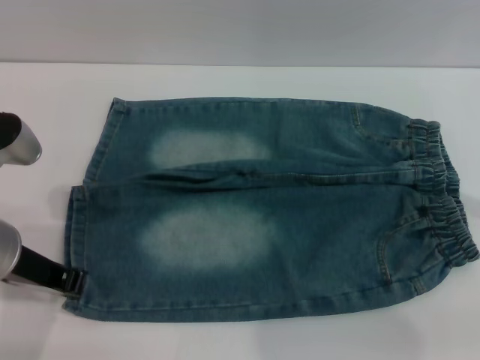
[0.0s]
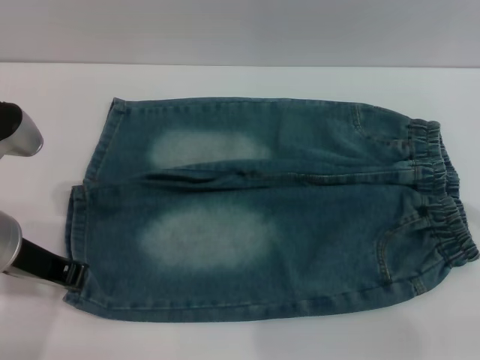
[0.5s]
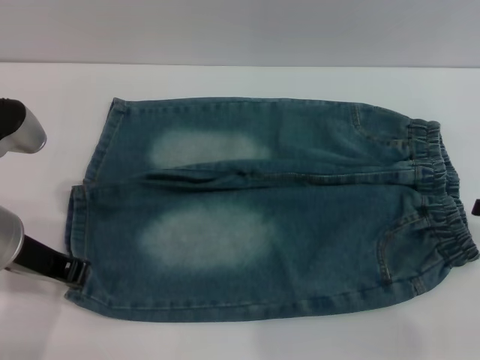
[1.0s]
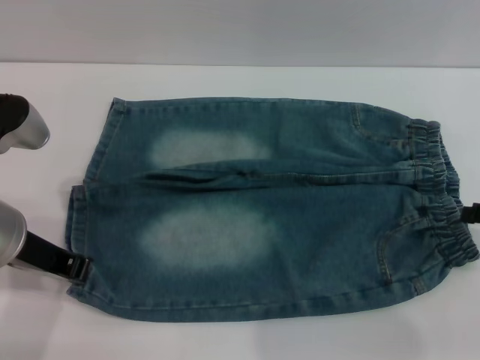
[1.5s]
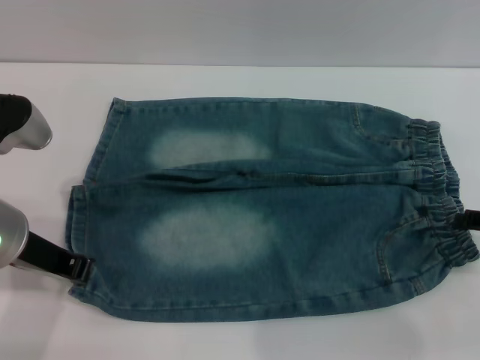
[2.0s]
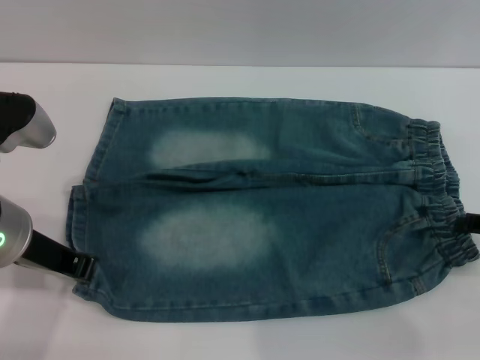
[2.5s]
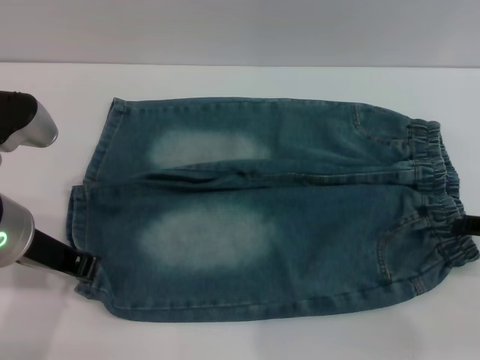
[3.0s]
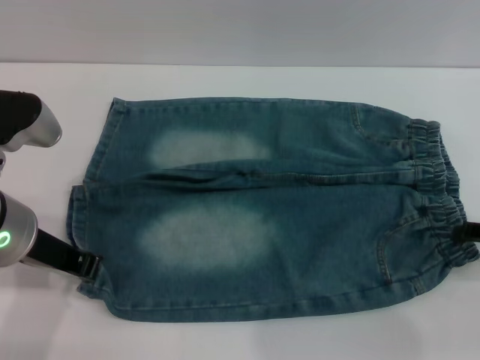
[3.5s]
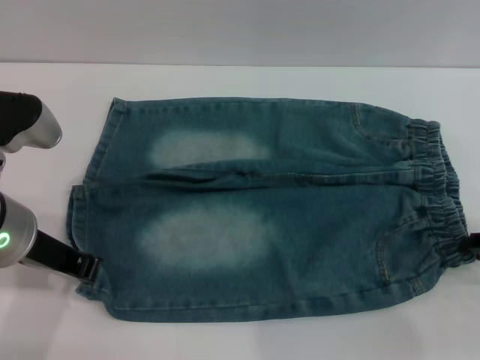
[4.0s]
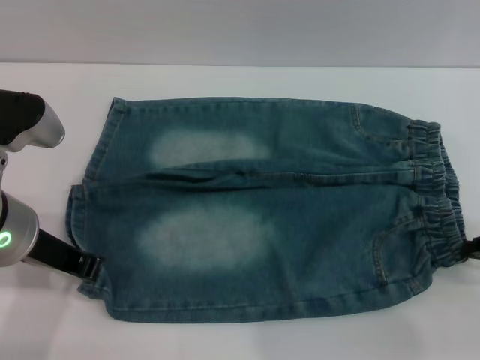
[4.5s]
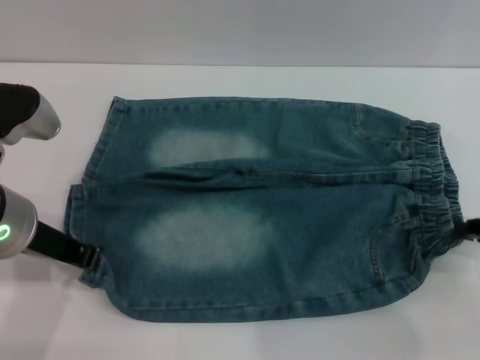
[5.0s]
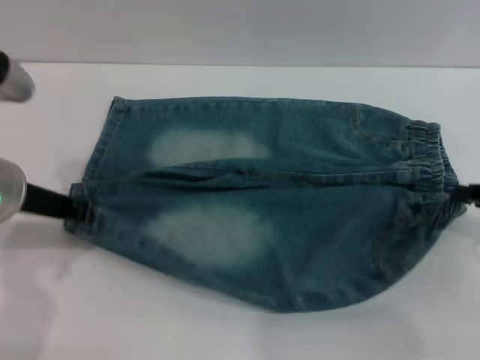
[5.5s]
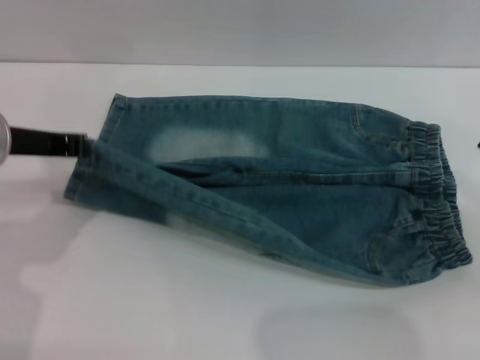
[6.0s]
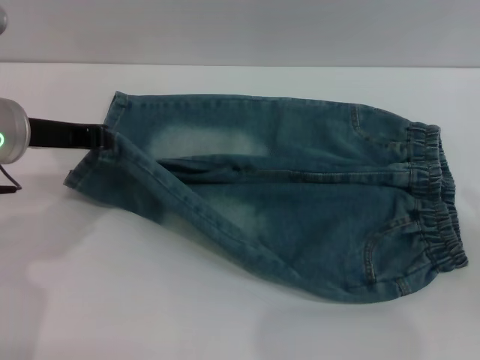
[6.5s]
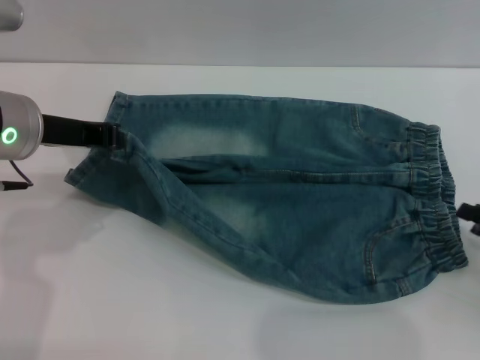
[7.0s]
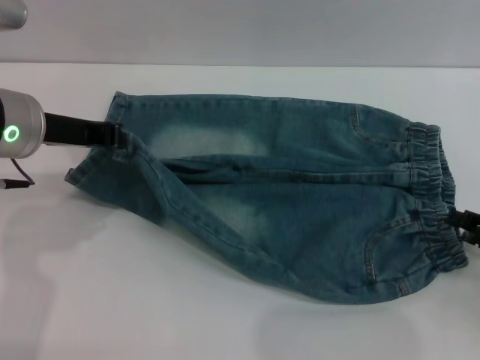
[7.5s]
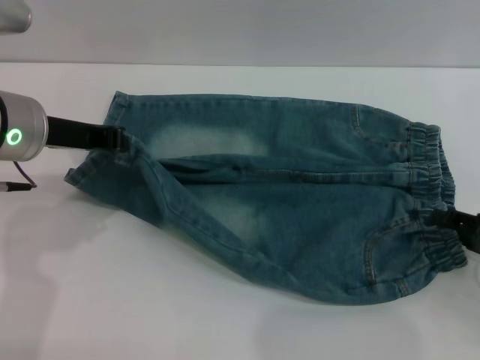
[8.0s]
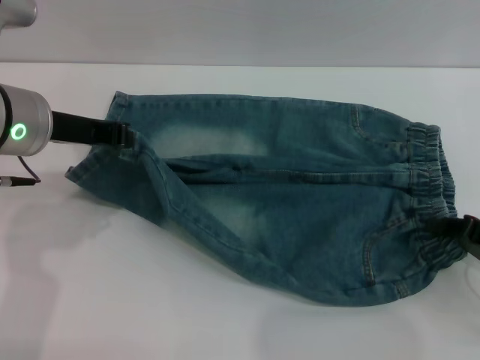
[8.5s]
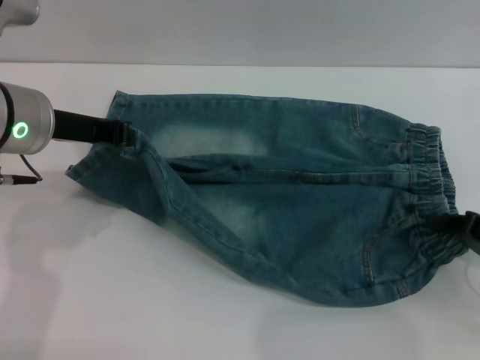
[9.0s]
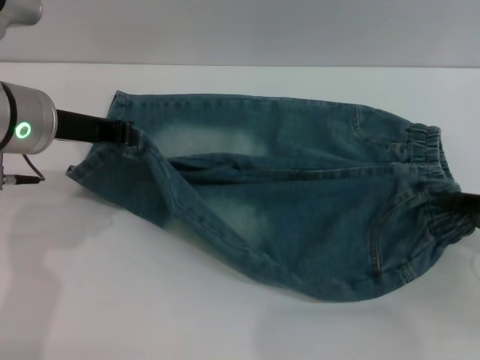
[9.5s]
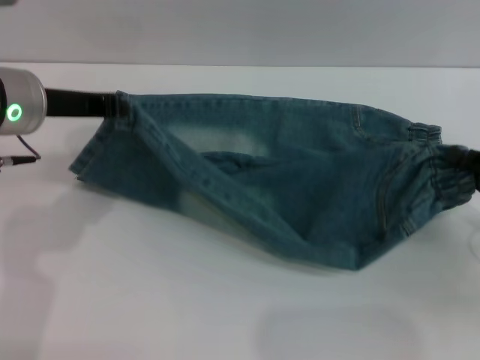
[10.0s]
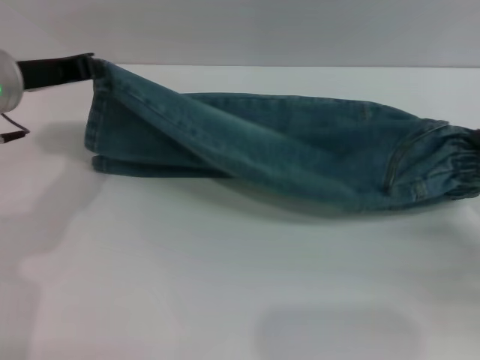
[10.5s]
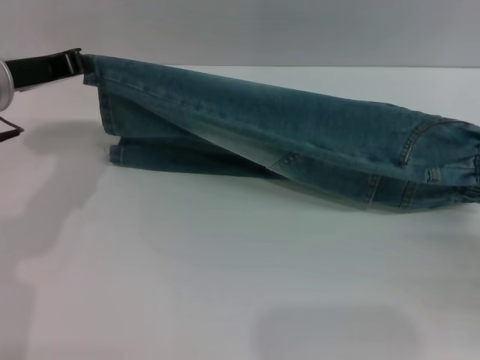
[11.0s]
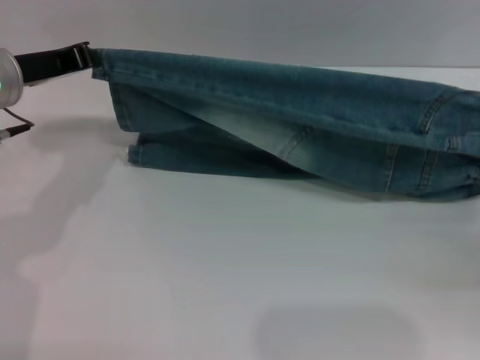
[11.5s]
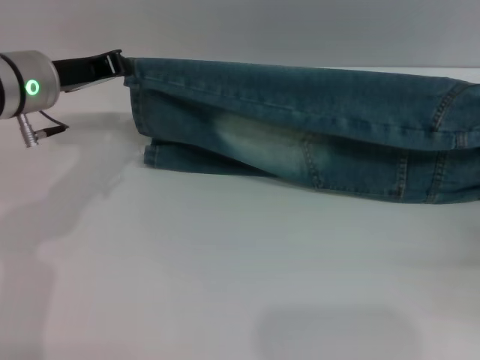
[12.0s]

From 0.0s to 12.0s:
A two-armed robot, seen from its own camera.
From 4.0s to 6.0s: The left gripper moves roughly 5 cm. The right gripper closes up.
From 6.0s to 8.0s: The right gripper shifts roughly 5 cm downward, and opens its fingers.
From 8.0s to 10.0s: The right gripper closes.
From 10.0s to 12.0s: The left gripper moves some 5 cm, while the right gripper moves about 5 cm.

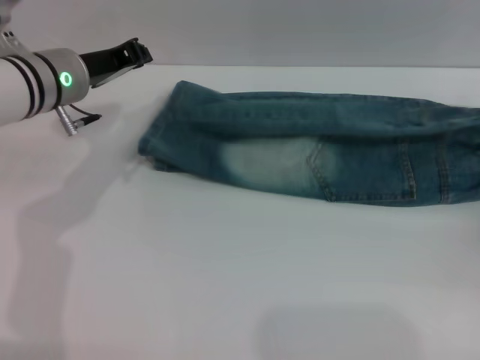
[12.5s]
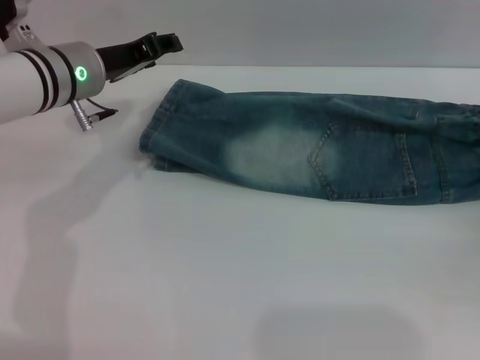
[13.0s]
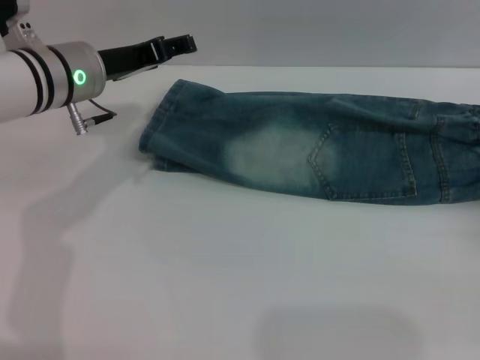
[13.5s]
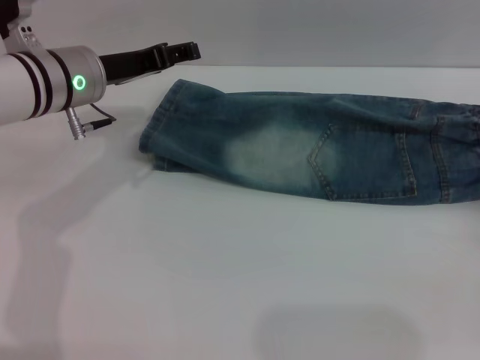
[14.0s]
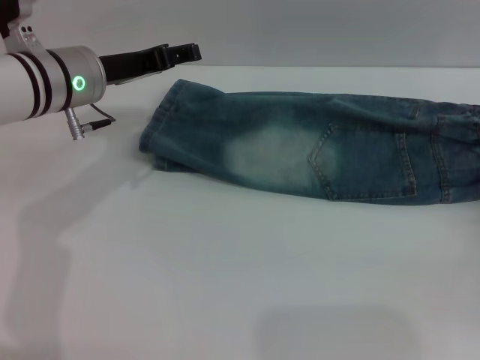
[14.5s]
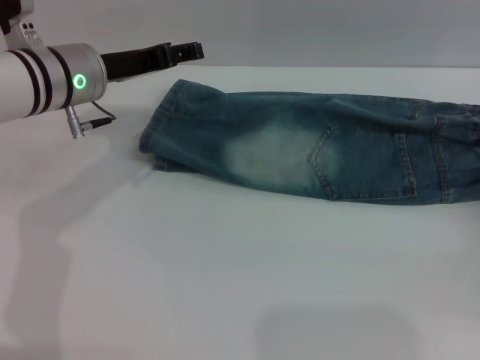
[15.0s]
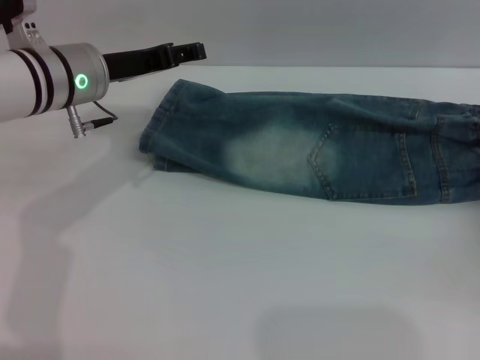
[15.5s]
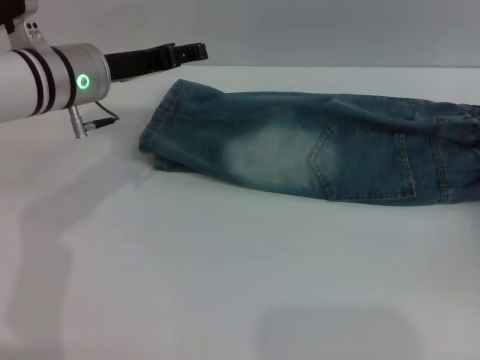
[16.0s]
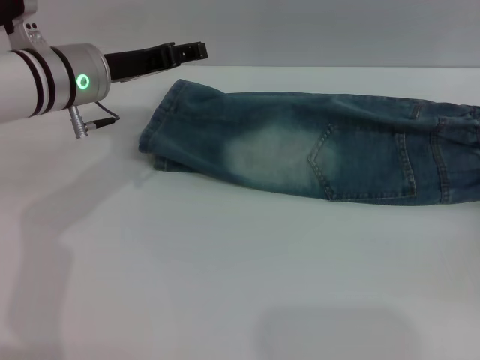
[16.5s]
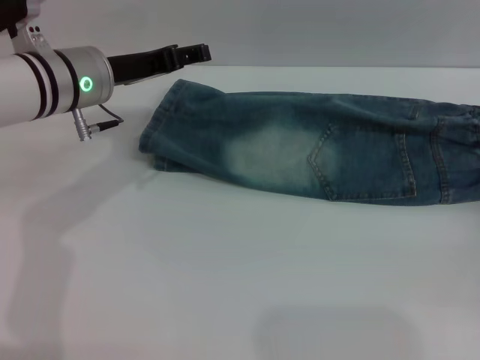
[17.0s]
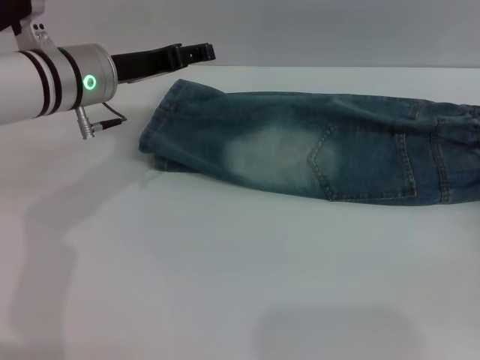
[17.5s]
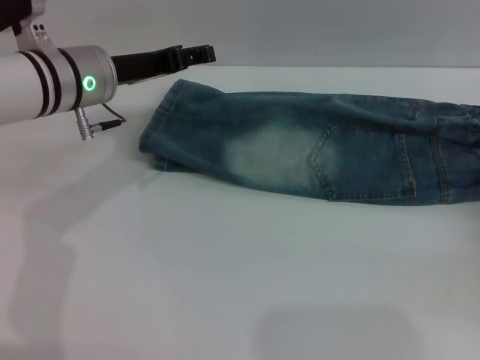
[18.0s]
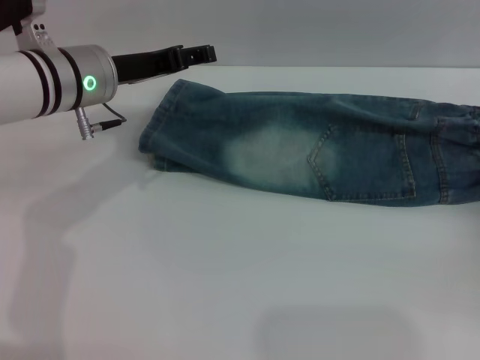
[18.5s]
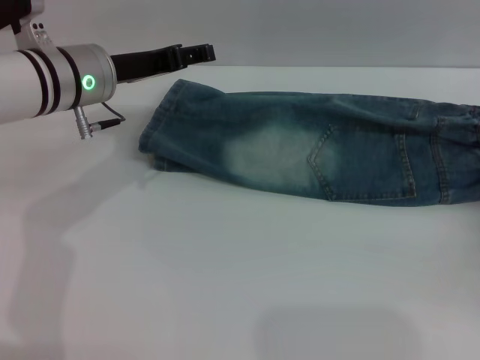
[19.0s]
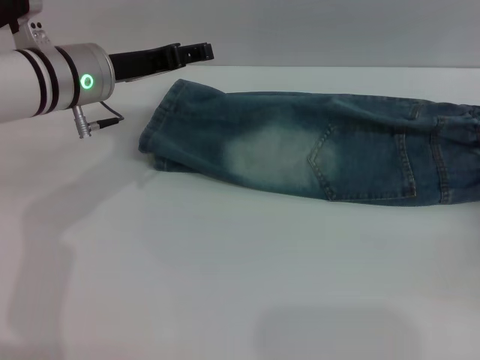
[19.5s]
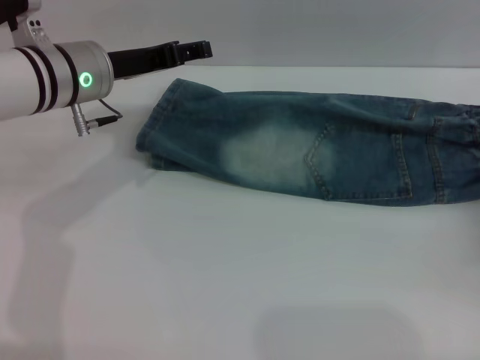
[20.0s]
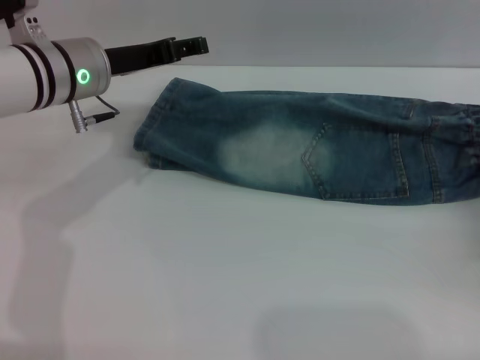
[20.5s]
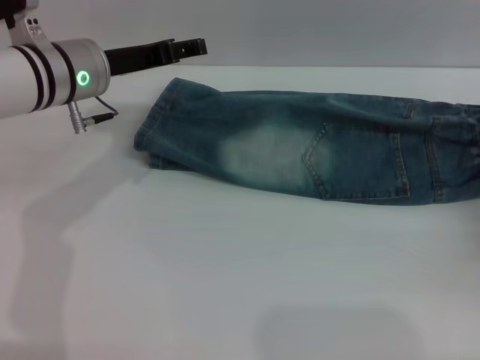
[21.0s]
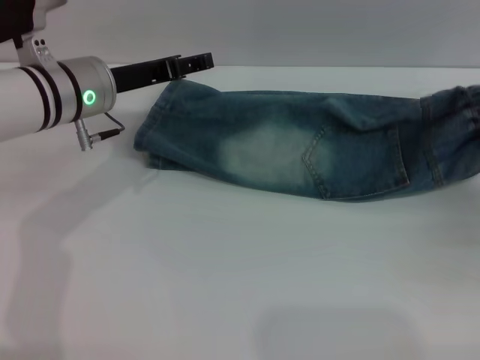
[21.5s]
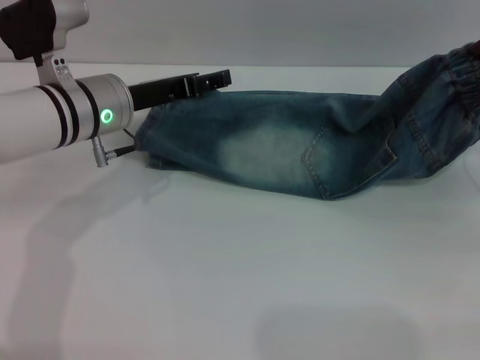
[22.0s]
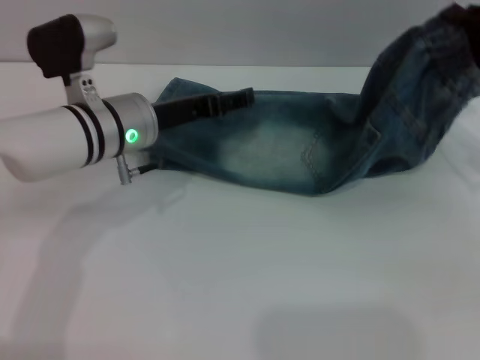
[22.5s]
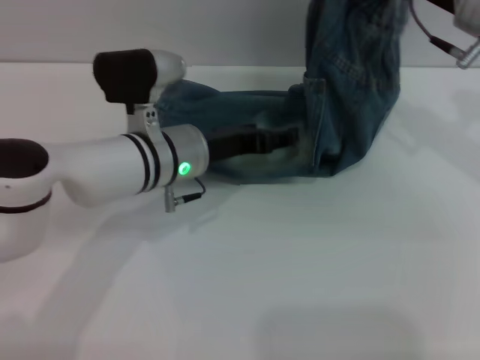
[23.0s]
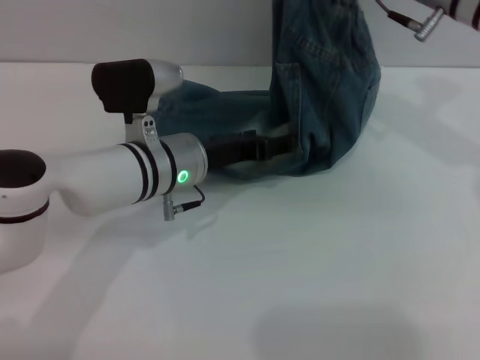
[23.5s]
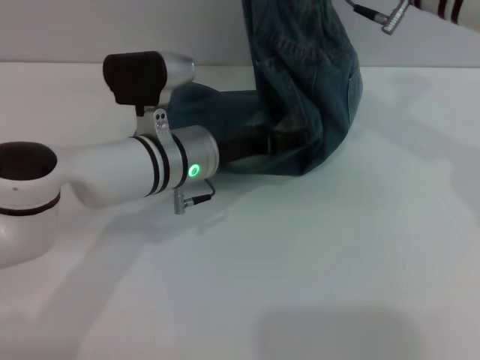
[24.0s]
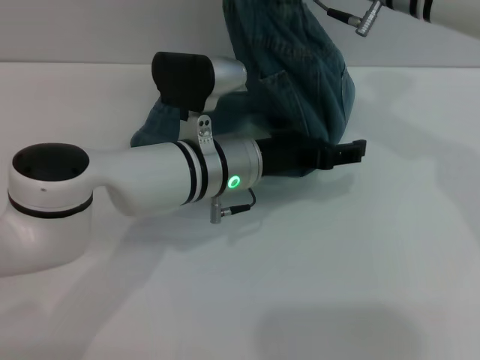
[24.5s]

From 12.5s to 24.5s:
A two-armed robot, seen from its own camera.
Step, from 12.5s to 17.5s: Fold the bottom of the pants upward with both grippers.
From 12.5s to 14.5s: The right gripper opens its fingers; the left gripper opens.
From 18.5s to 20.5s: The right gripper closes up.
From 20.5s to 22.5s: The left gripper shifts by about 5 cm. Meanwhile the right gripper heads upward, forward and to the left, covering approximately 15 cm.
From 22.5s to 24.5s: The left gripper moves to the right, approximately 10 cm; the right gripper goes roughly 20 cm to the left, upward and forward.

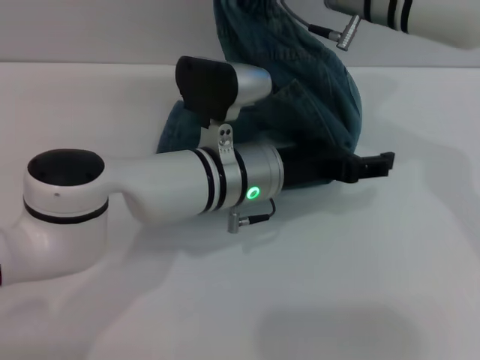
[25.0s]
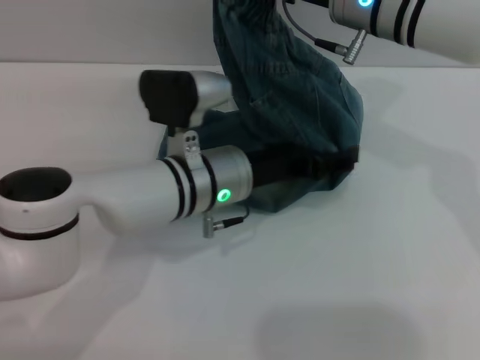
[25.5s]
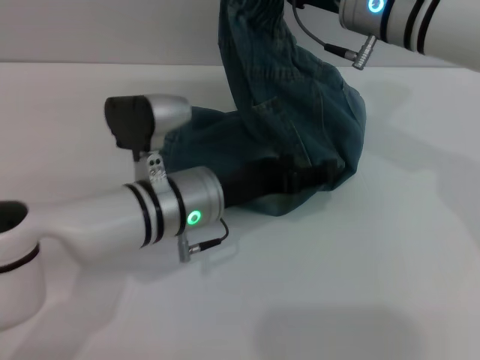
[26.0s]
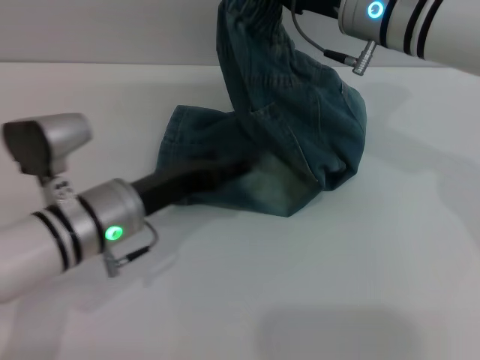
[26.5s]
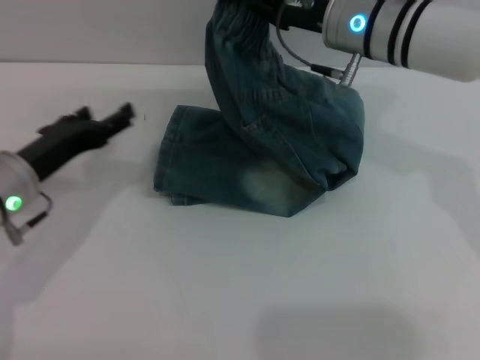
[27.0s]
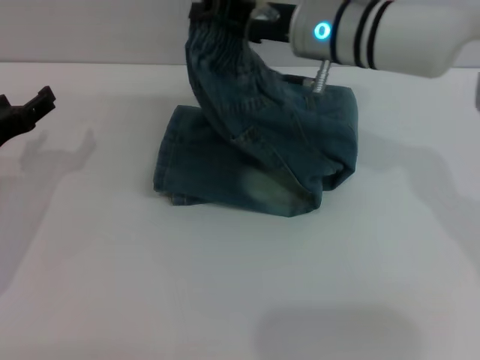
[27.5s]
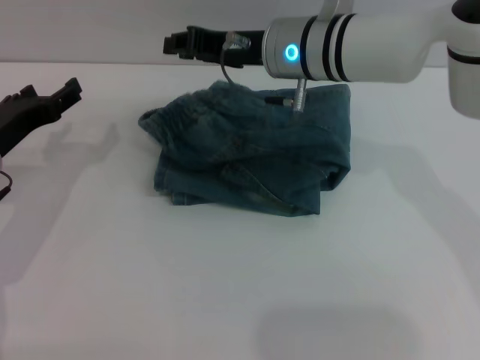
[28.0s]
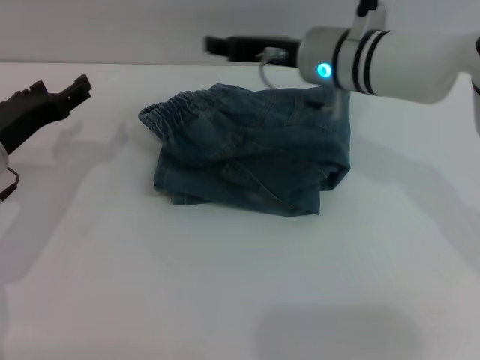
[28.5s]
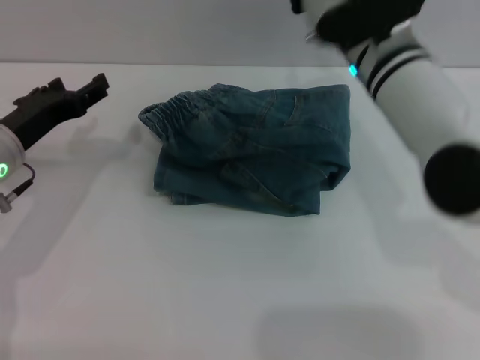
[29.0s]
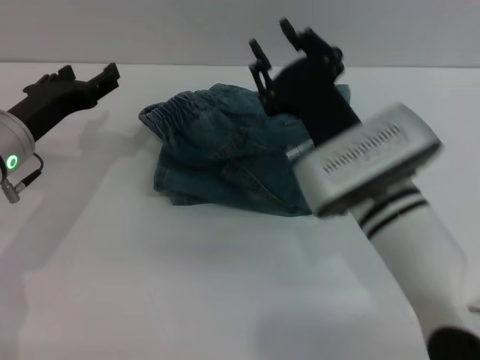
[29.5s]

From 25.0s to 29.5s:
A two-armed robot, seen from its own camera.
Step, from 25.0s to 28.0s: Fold the pants from right to left with the right gripper.
From 25.0s to 27.0s: The left gripper shifts approximately 20 cm to the left.
From 27.0s to 29.5s: The right gripper heads backward and downward, covering roughly 15 cm, and opens its fingers.
